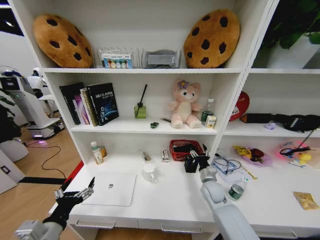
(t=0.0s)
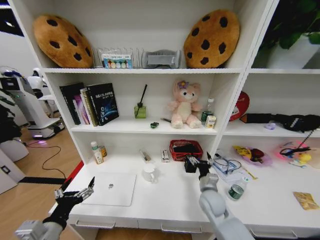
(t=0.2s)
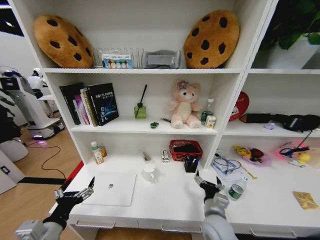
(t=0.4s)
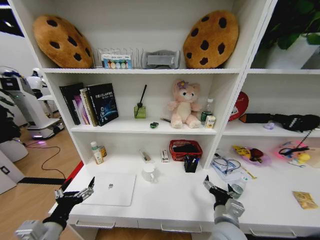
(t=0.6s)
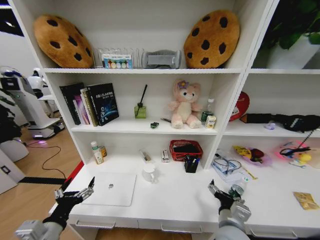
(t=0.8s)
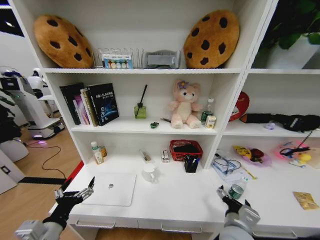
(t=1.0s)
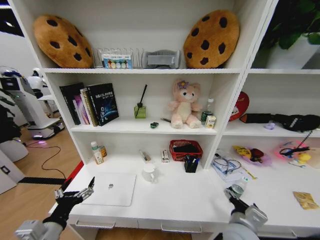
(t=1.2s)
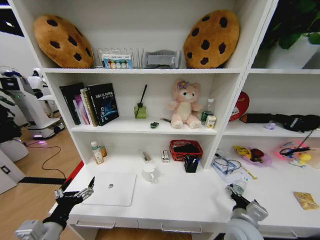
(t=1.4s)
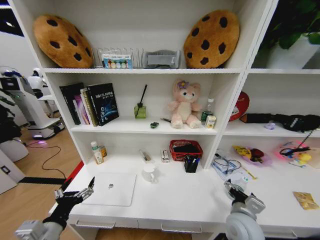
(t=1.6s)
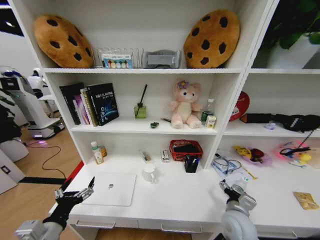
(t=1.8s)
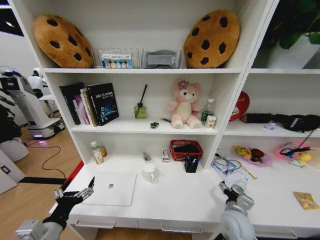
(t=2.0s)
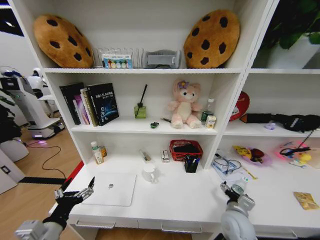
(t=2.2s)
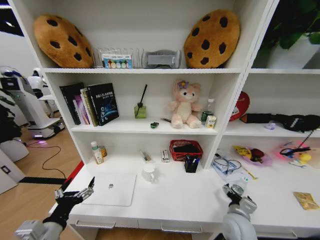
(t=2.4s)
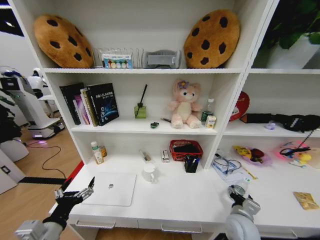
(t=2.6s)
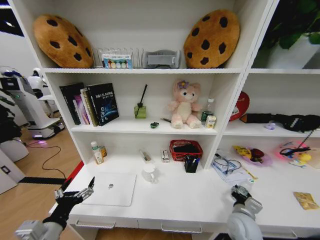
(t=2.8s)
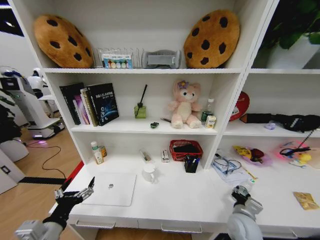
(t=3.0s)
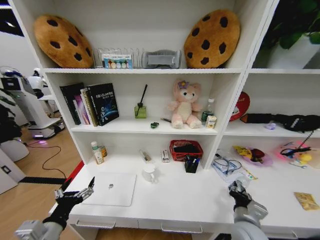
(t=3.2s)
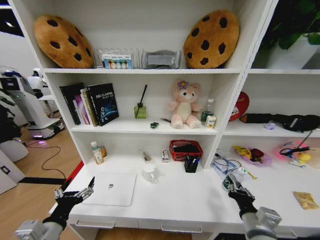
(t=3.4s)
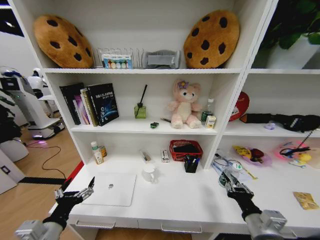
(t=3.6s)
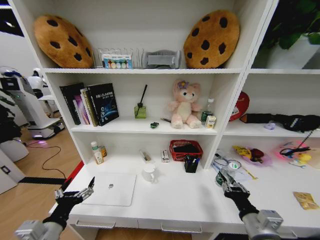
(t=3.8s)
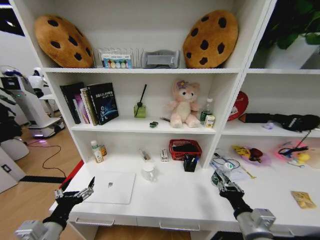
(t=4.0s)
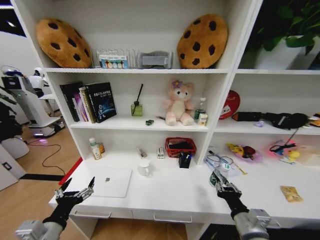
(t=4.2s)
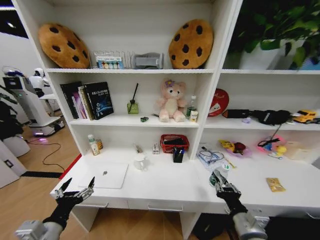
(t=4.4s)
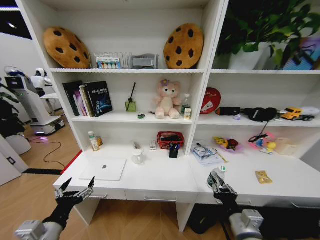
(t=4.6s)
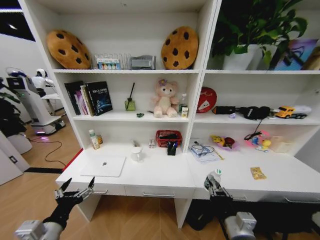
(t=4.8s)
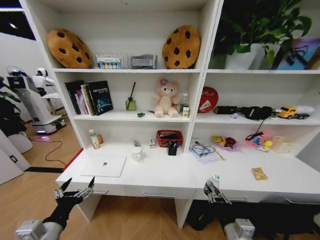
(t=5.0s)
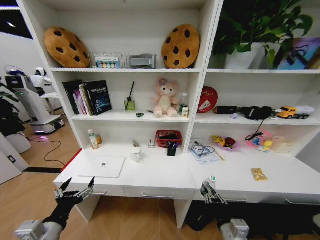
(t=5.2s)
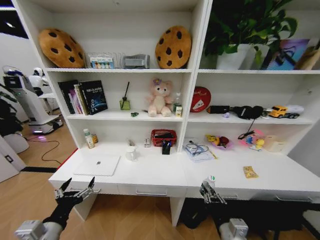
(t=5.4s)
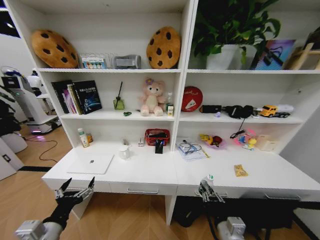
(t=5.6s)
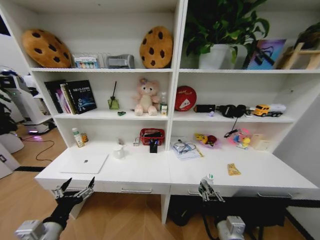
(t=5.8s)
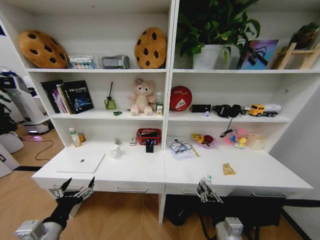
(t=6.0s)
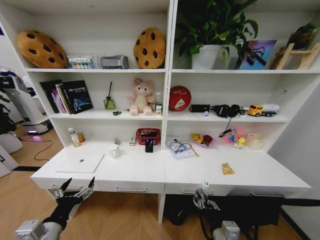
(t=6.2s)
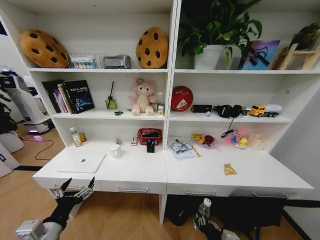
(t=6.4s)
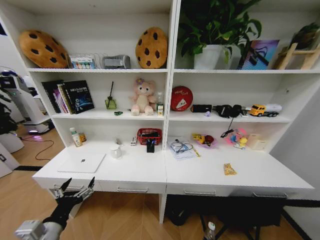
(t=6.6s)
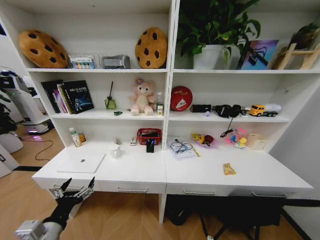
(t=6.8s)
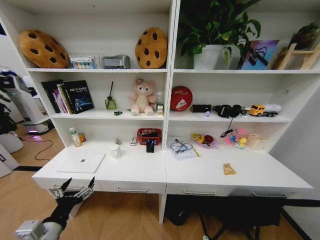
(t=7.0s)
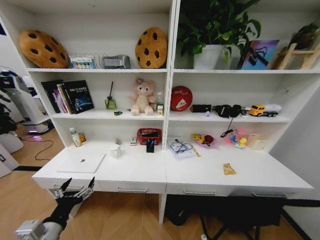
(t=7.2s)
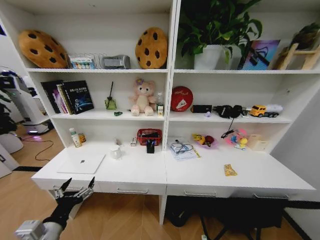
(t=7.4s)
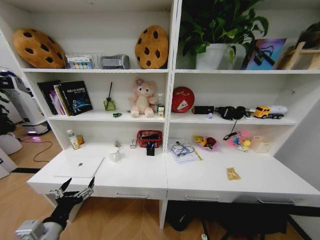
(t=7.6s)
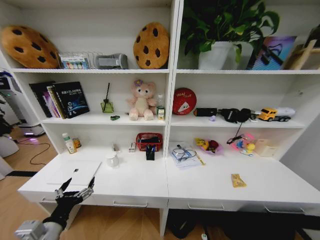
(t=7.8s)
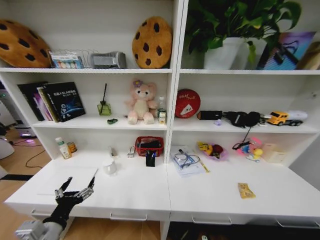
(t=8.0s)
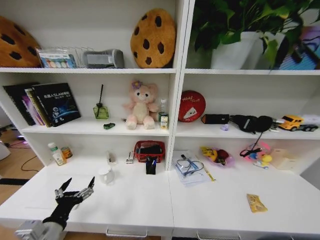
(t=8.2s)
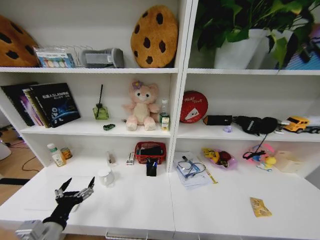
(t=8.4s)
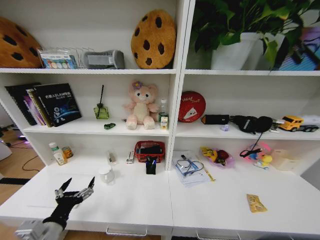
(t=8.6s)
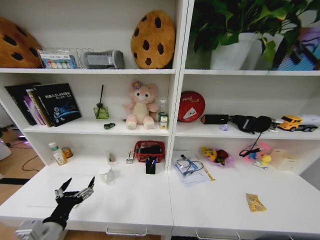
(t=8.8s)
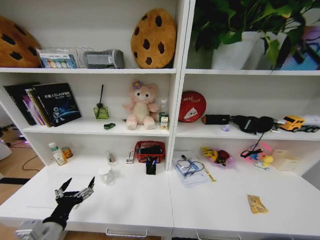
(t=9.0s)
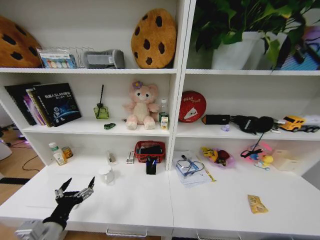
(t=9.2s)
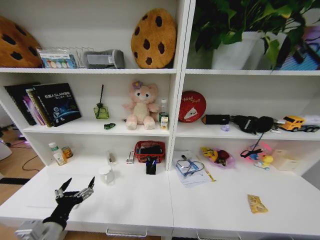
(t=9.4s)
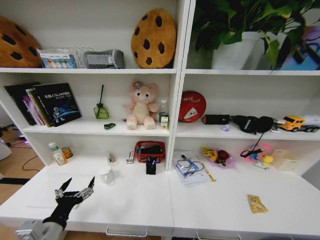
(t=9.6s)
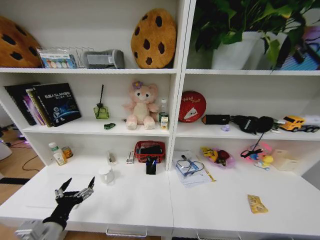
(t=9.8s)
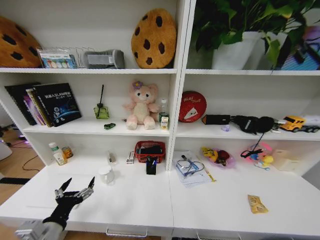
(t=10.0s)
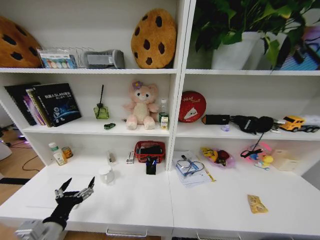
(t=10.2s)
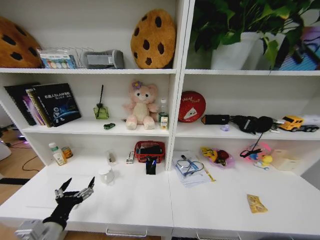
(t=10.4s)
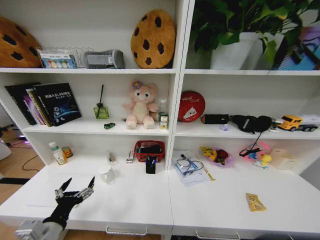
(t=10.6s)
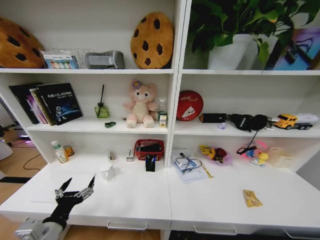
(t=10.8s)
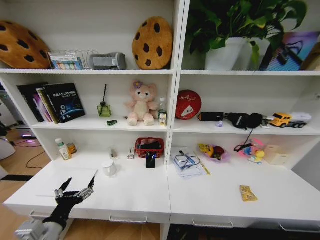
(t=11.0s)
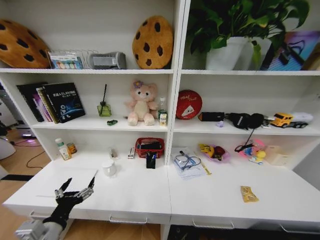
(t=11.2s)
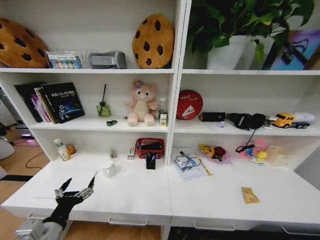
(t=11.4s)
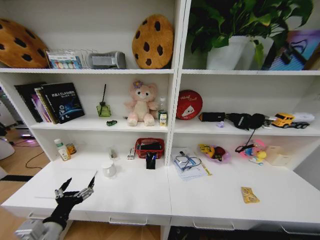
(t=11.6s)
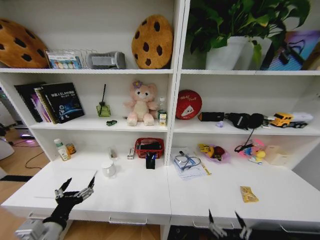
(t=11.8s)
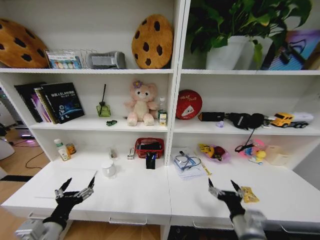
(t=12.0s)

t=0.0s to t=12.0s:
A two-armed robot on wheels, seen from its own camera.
Task of the whole recording: Organize the objects on the table.
t=0.0s to t=1.6s: The right gripper heads backward, covering about 15 cm.
t=1.6s to t=3.0s: The right gripper moves downward, approximately 5 cm, and closes its fingers.
t=3.0s to t=4.4s: The right gripper moves upward and backward, about 10 cm.
t=4.4s to t=6.0s: The right gripper ends up about 5 cm from where it was.
t=6.0s to t=7.6s: The right gripper moves downward, some 30 cm.
t=9.0s to t=10.4s: The right gripper heads backward and upward, covering roughly 15 cm, and opens its fingers.
t=10.4s to t=12.0s: The right gripper heads upward and forward, covering about 35 cm.

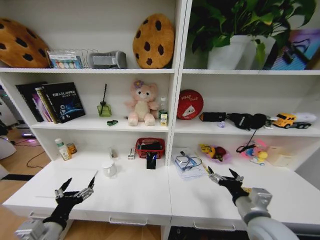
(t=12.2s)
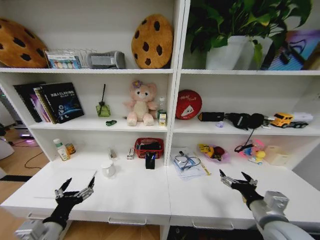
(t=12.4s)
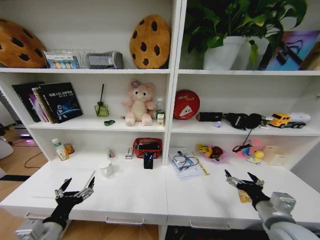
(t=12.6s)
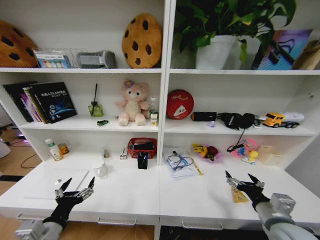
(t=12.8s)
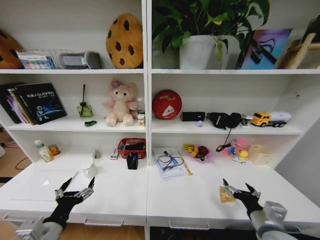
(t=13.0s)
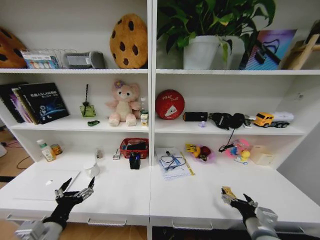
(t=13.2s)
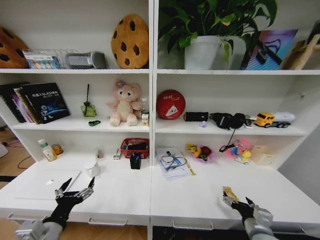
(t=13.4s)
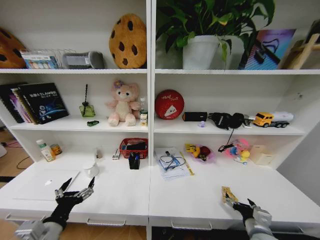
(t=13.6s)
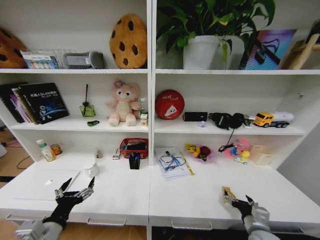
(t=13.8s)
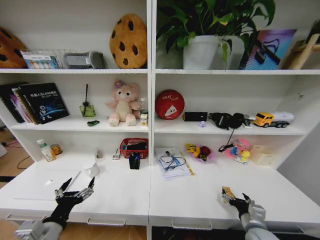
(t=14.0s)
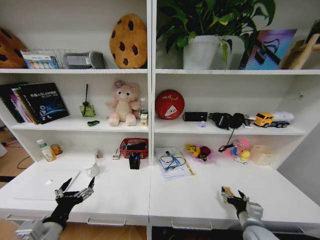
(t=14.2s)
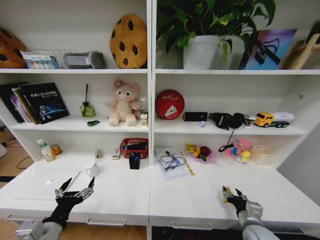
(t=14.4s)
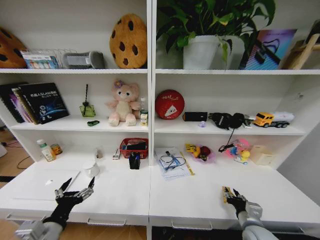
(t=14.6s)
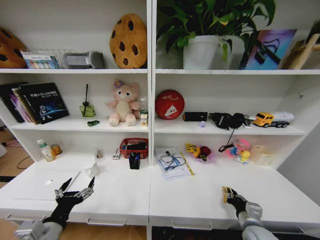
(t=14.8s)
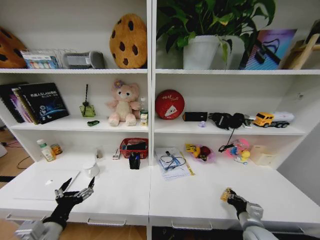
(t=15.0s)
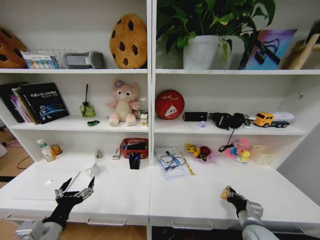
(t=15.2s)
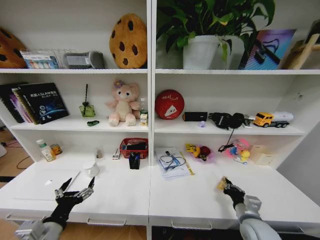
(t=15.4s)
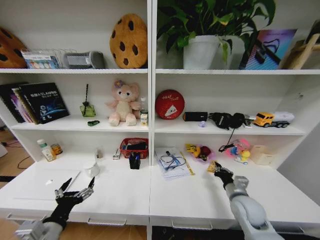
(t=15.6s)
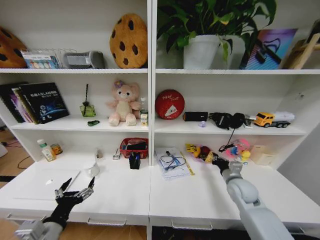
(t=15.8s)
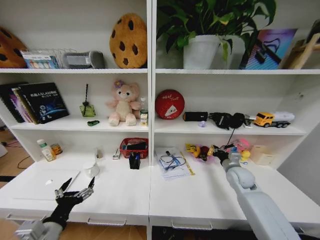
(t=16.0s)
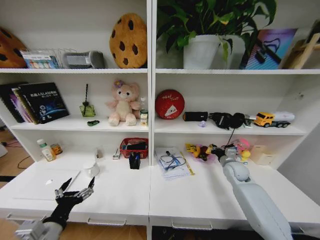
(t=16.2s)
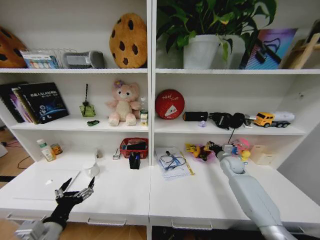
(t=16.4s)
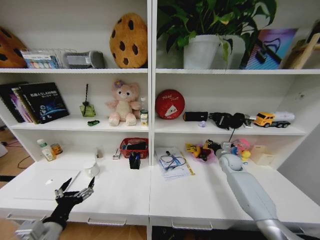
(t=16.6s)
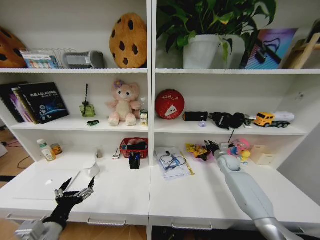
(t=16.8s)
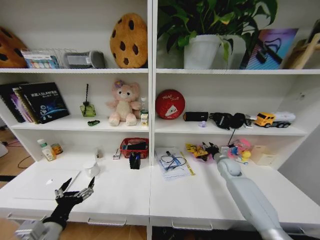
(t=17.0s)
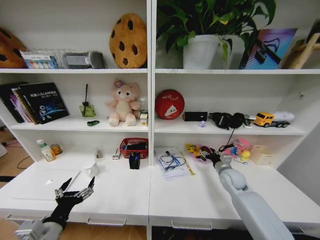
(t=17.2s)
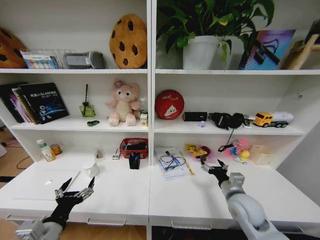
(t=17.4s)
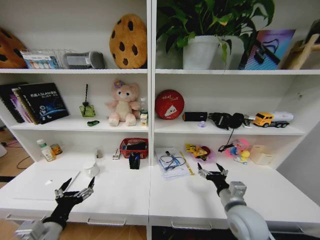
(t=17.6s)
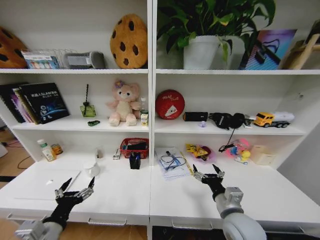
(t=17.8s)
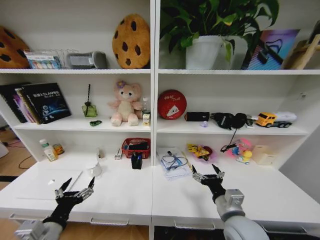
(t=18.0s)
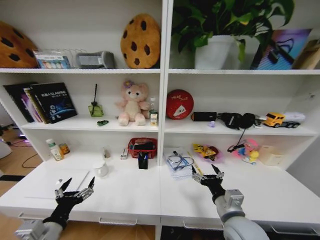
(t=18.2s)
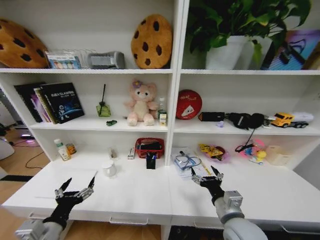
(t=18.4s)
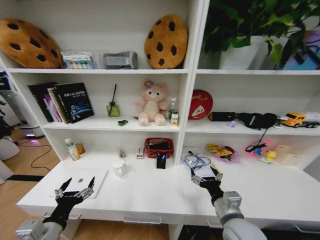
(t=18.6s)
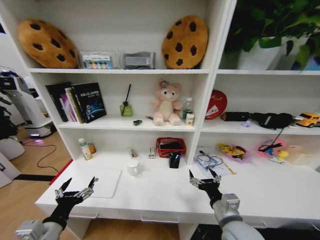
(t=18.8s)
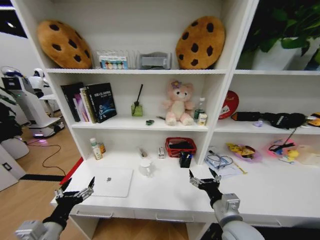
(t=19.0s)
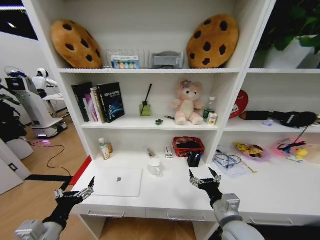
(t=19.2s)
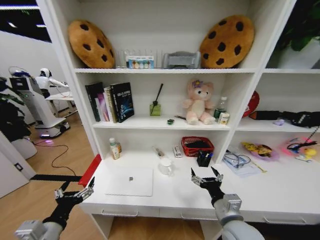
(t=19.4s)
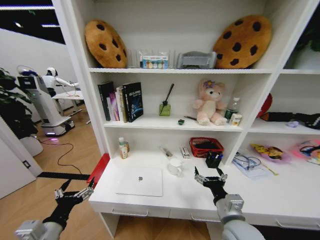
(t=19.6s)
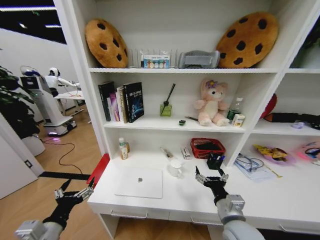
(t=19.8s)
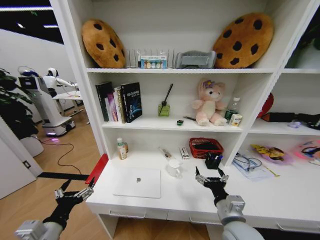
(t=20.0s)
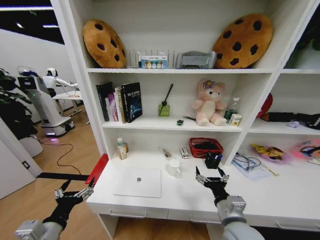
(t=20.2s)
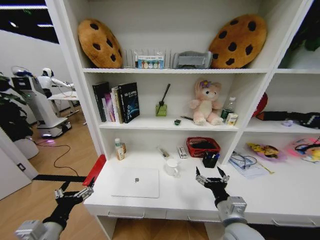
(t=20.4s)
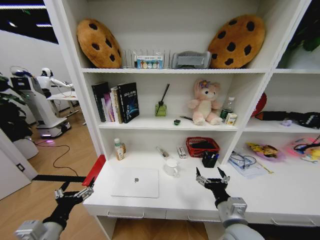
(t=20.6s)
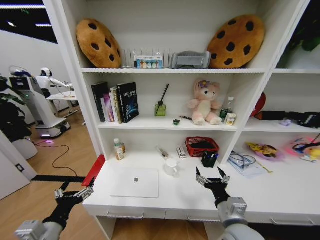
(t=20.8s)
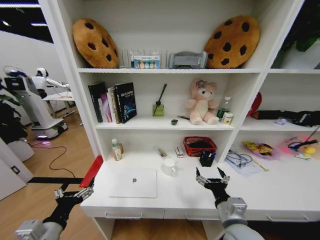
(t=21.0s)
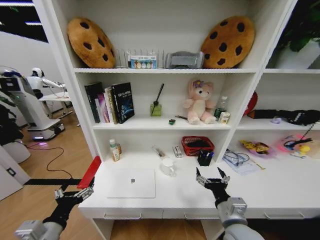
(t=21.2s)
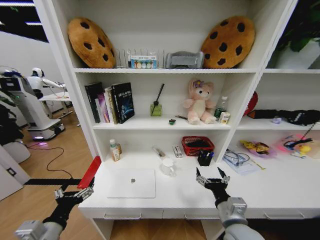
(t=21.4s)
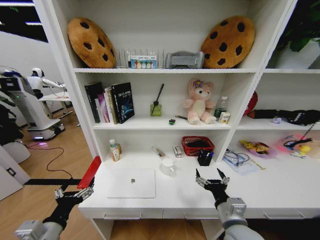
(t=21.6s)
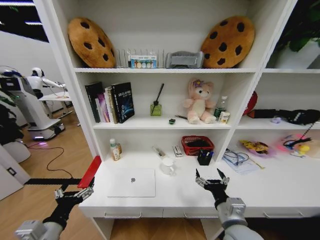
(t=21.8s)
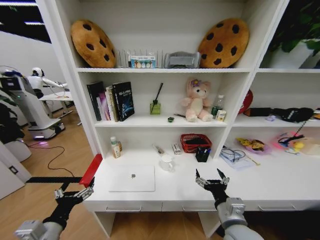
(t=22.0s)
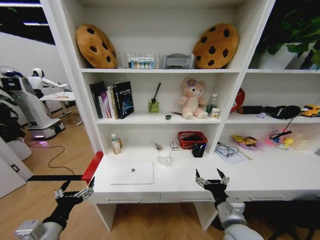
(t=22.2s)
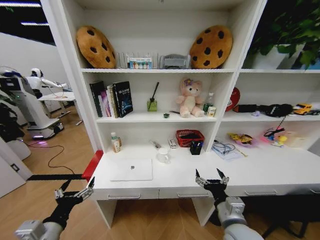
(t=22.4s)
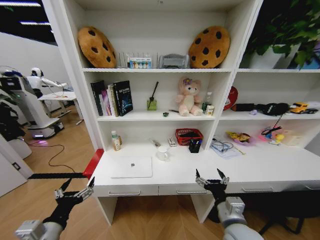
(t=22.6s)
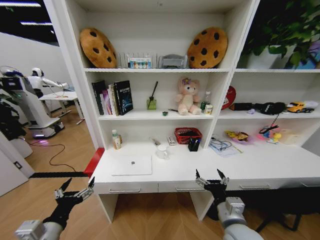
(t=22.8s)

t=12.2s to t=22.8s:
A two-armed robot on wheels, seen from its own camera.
Task of the whole recording: Organize the objects on the table.
t=12.2s to t=13.8s: The right gripper is displaced downward and to the right by some 15 cm.
t=13.8s to t=15.2s: The right gripper closes up.
t=15.2s to t=16.8s: The right gripper moves forward, about 30 cm.
t=16.8s to t=18.2s: The right gripper moves backward and to the left, approximately 35 cm, and opens its fingers.
